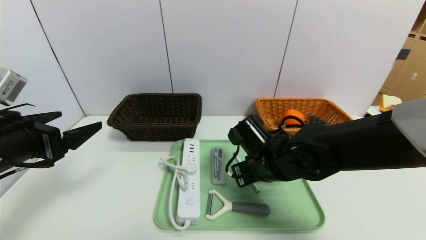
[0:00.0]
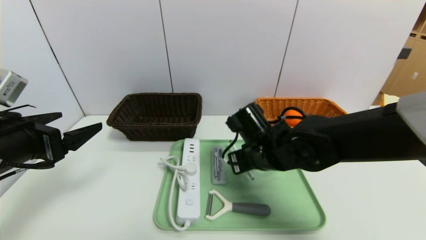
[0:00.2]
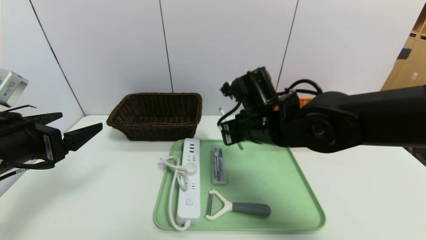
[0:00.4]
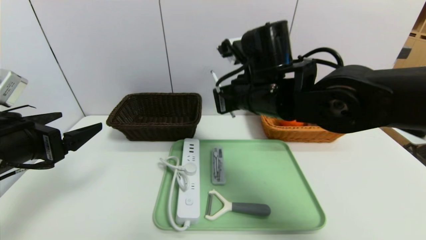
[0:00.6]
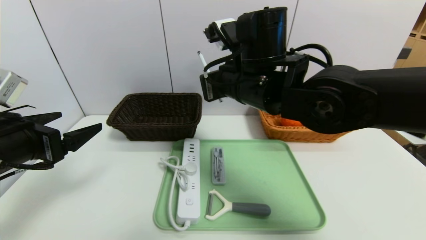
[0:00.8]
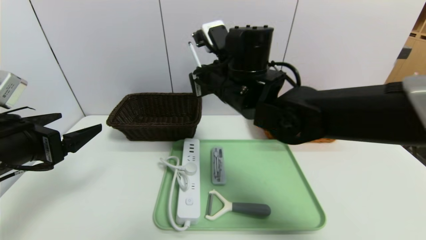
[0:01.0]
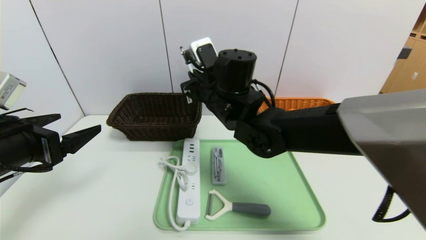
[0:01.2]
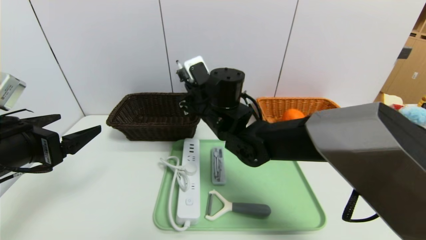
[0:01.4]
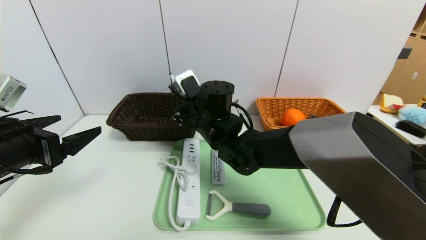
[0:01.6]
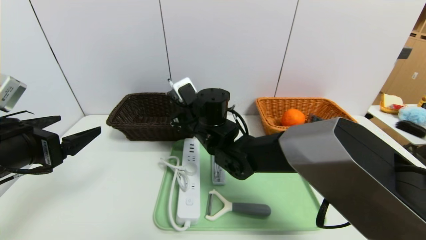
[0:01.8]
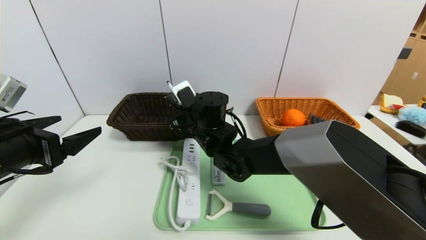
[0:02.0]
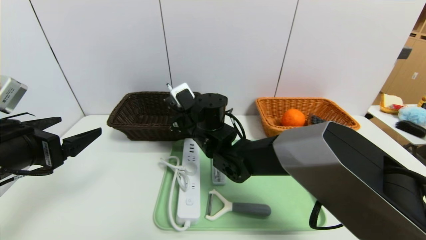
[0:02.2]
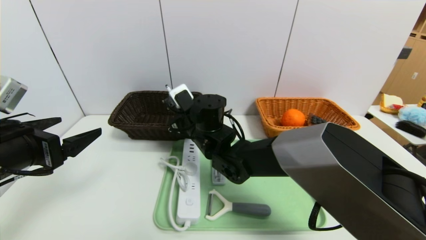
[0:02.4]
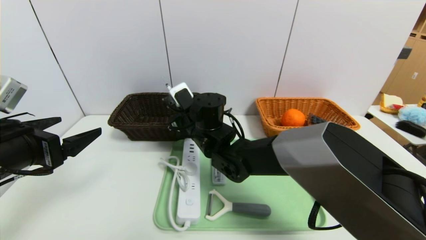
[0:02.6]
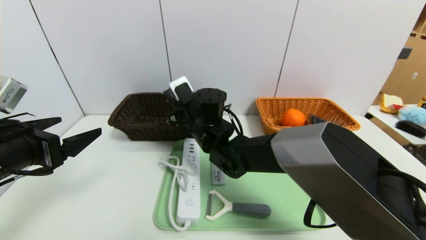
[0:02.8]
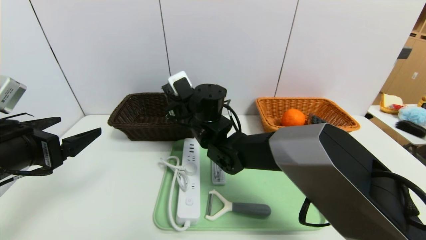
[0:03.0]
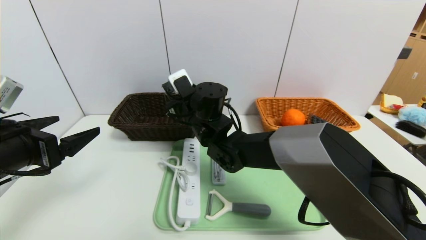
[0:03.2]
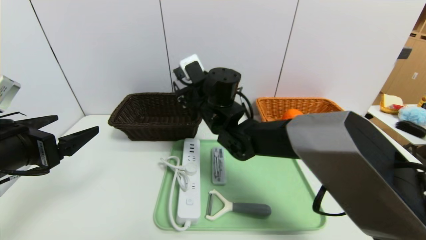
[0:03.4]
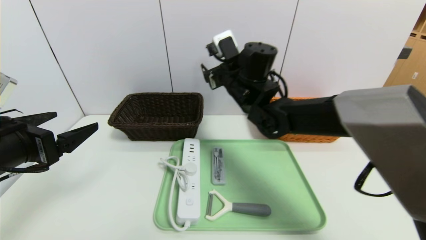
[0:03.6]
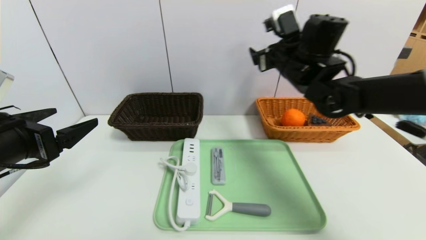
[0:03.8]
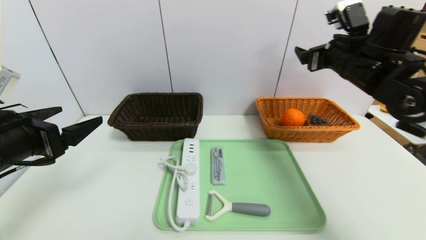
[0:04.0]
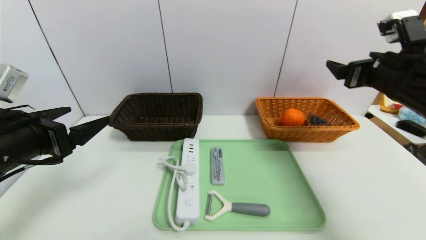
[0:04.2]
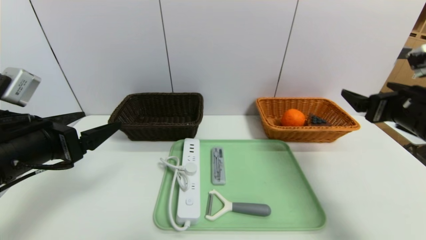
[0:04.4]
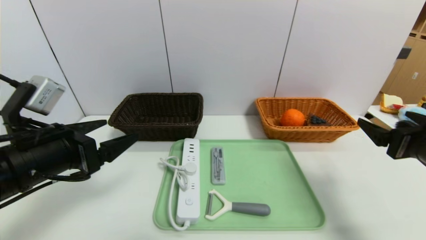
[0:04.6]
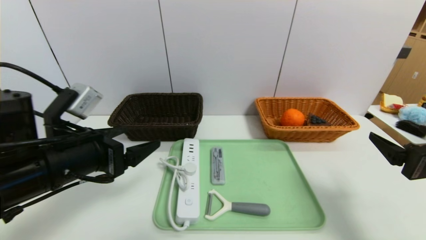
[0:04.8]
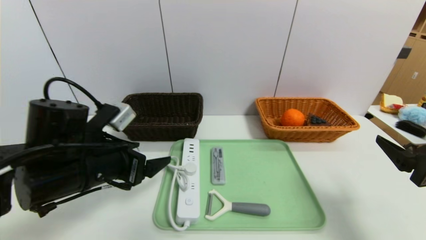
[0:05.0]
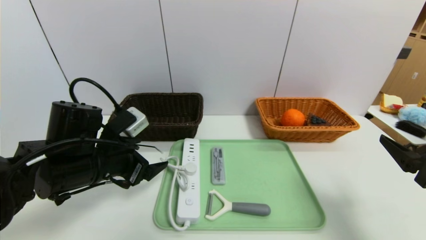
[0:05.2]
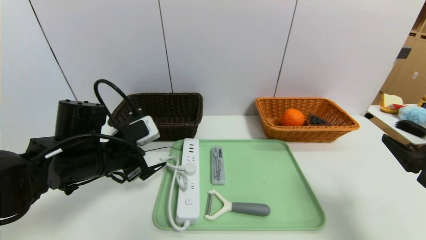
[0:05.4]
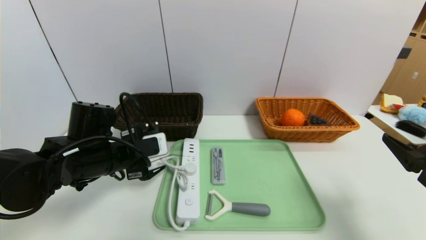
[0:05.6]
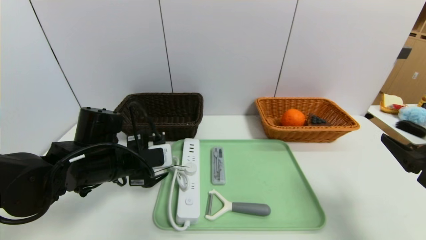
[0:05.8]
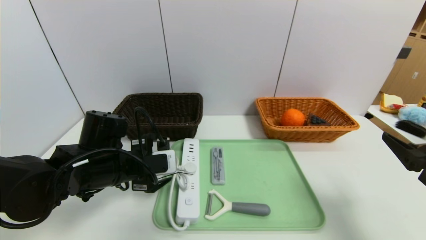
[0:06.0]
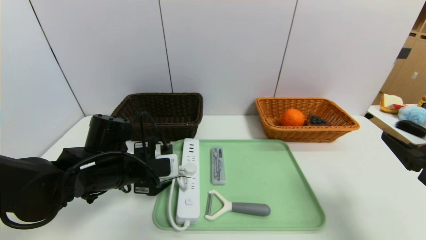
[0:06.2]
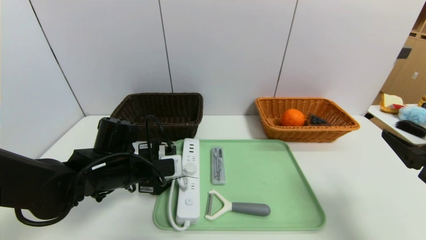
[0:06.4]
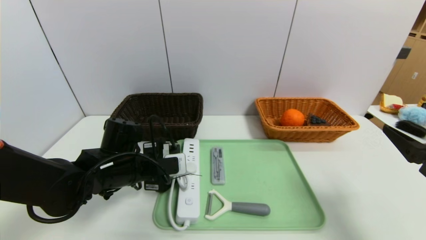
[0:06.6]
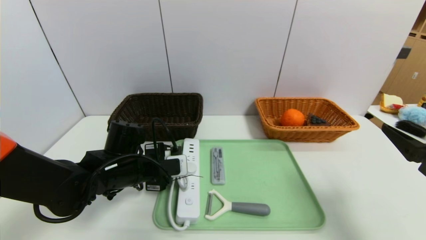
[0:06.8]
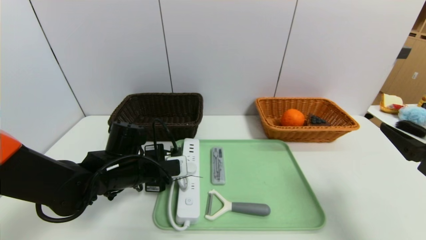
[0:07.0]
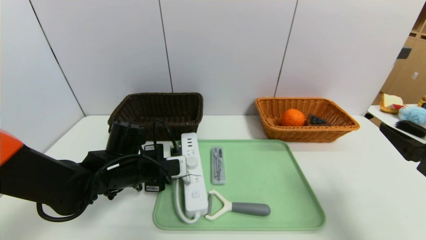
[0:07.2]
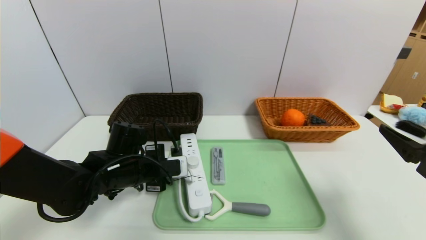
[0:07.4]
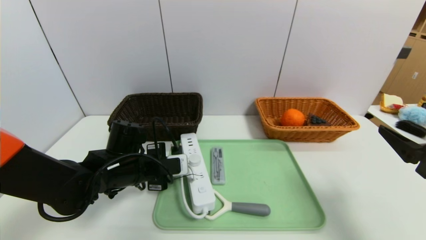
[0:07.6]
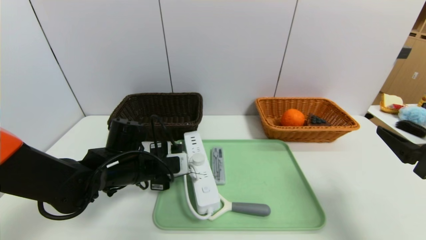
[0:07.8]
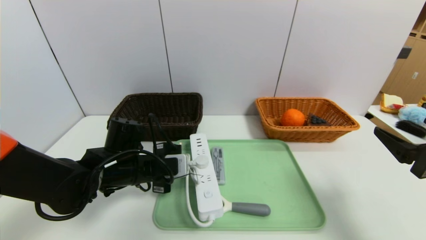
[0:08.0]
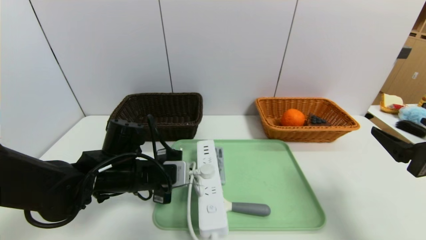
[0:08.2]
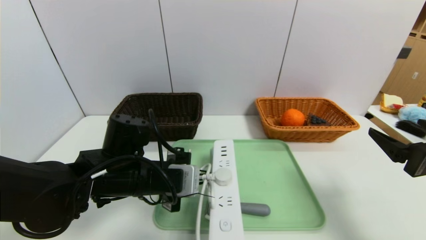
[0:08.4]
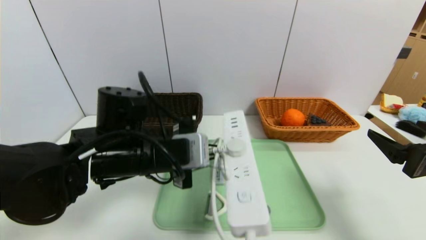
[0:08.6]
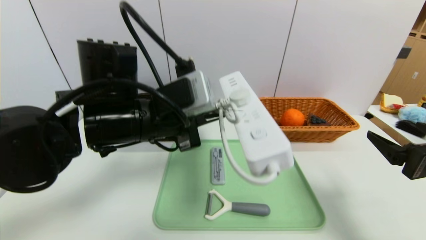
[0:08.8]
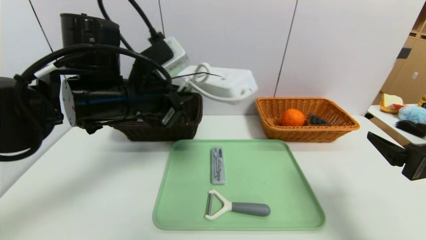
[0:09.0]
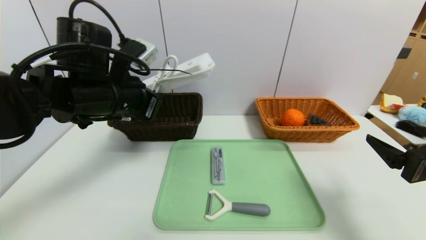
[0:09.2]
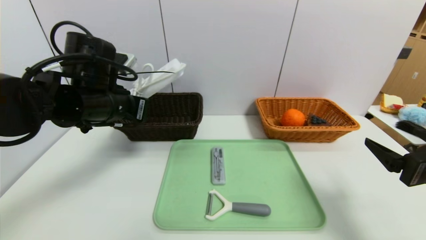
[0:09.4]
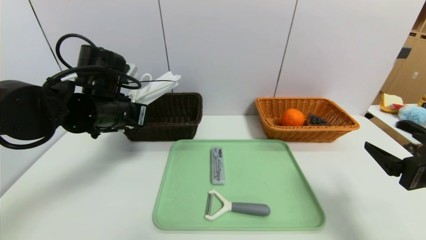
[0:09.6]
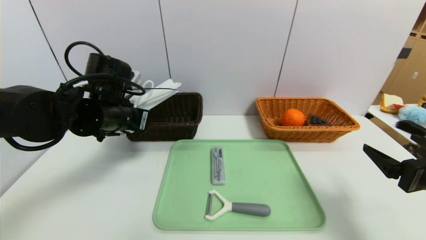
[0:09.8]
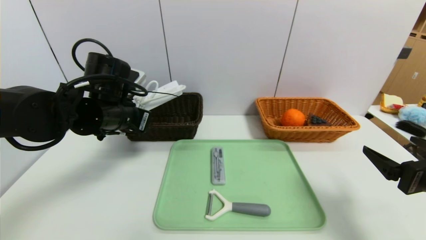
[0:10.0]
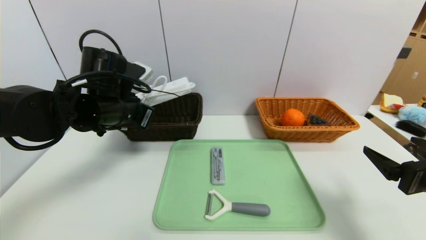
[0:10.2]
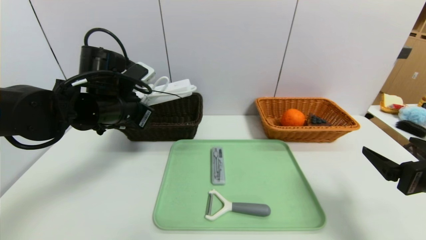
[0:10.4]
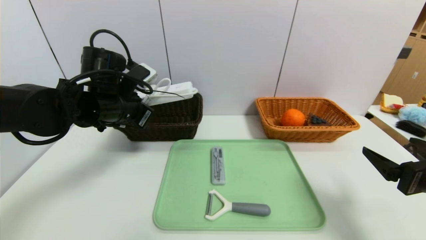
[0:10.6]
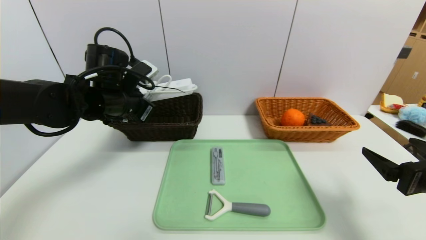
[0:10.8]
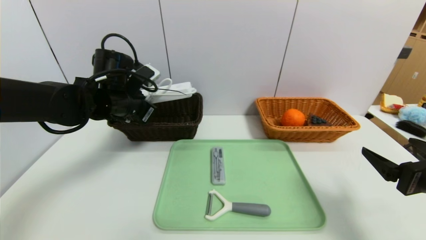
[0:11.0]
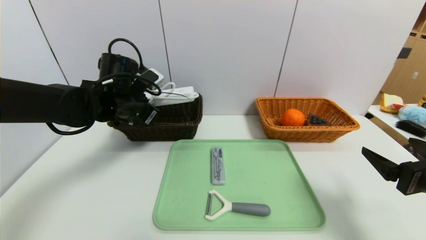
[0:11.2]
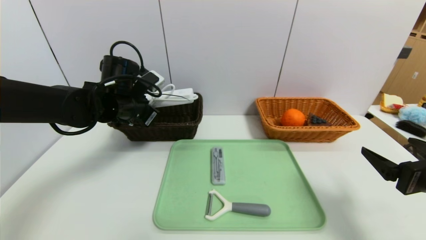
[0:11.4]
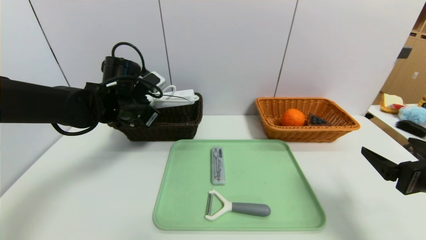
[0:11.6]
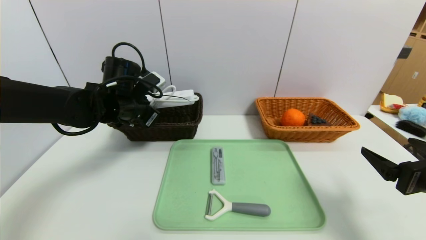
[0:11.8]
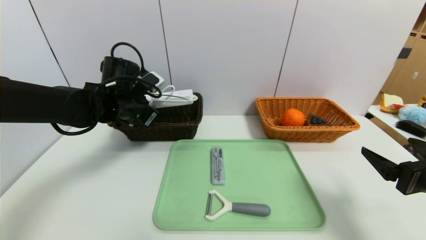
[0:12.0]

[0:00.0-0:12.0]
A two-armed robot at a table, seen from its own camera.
Task of the whole recording: place the food in the right basket with the right gripper, and place the non food items in the left basket with the left gripper.
0:00.0 to 0:01.6: The right gripper travels to the left, forward and upward by about 15 cm.
0:01.6 to 0:03.0: The right gripper opens its fingers.
0:03.0 to 0:04.4: The right gripper goes some 40 cm to the right and backward, and opens its fingers.
0:04.4 to 0:06.0: The right gripper goes about 10 cm backward. The left gripper moves downward, to the right and forward, roughly 15 cm.
0:06.0 to 0:07.6: The left gripper closes.
0:07.6 to 0:09.0: The left gripper travels upward by roughly 15 cm.
0:09.0 to 0:10.4: The left gripper ends up some 10 cm from where it was.
0:10.4 to 0:12.0: The left gripper is displaced forward by about 5 cm.

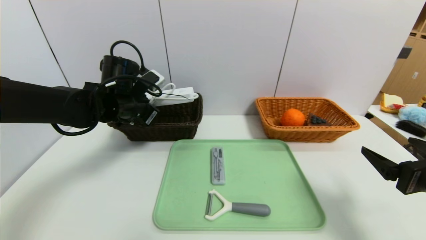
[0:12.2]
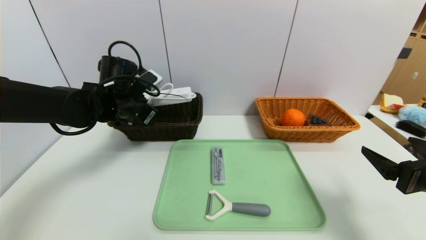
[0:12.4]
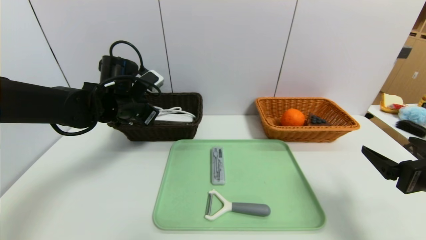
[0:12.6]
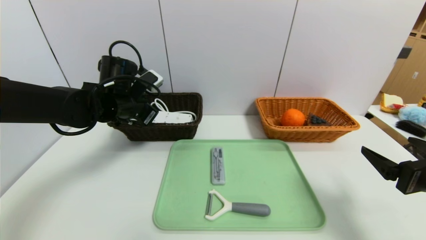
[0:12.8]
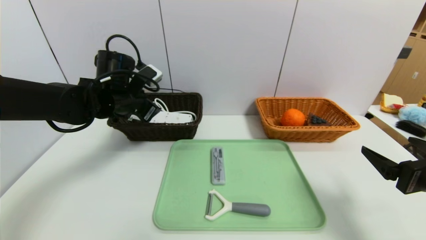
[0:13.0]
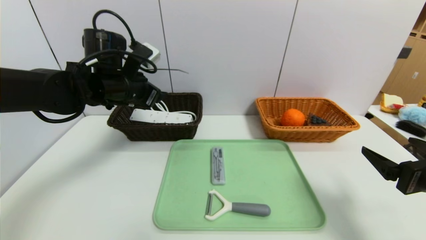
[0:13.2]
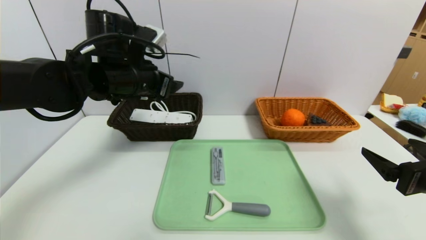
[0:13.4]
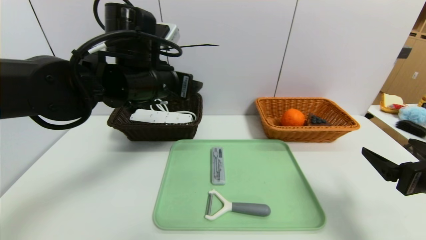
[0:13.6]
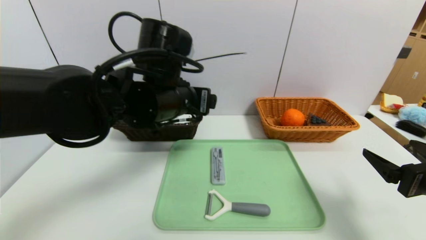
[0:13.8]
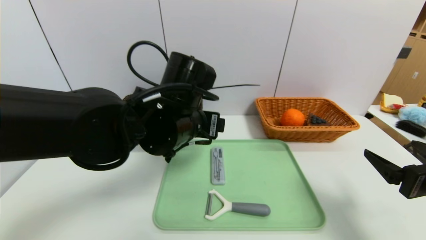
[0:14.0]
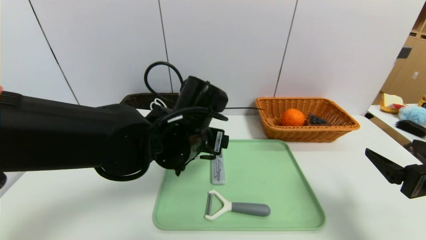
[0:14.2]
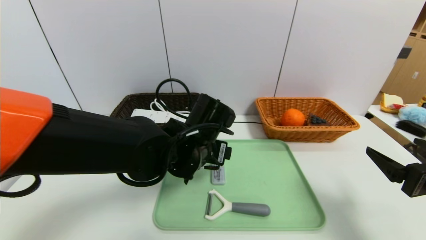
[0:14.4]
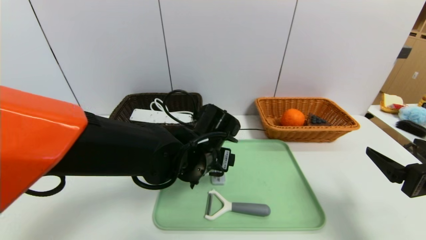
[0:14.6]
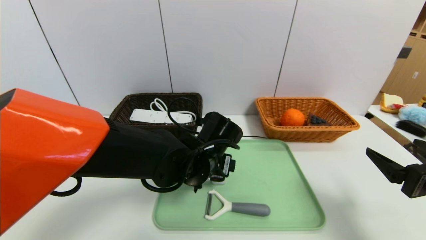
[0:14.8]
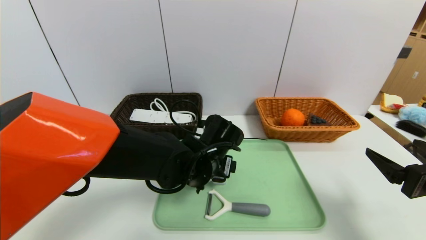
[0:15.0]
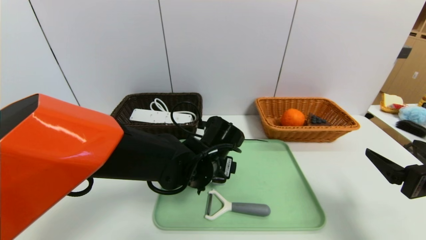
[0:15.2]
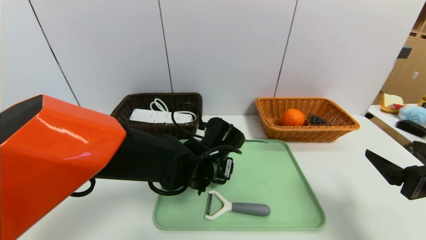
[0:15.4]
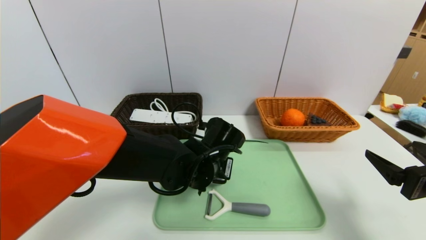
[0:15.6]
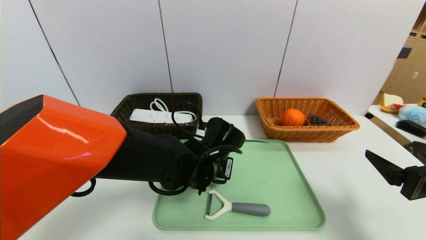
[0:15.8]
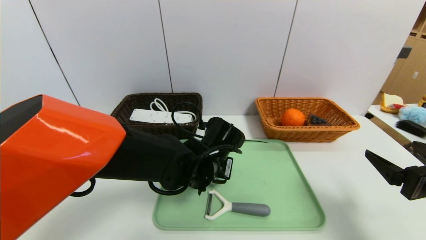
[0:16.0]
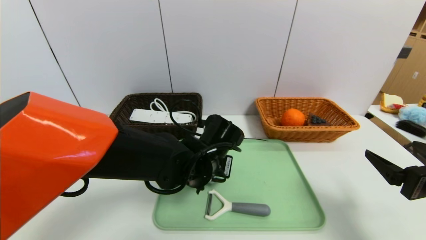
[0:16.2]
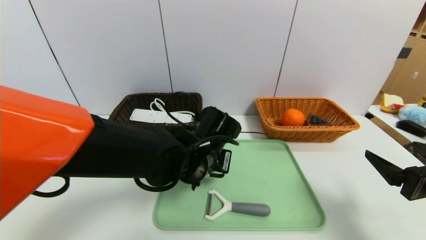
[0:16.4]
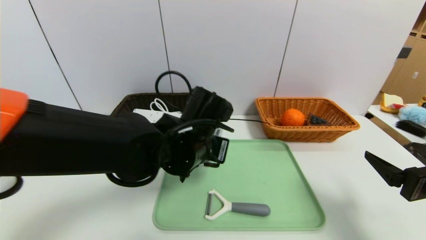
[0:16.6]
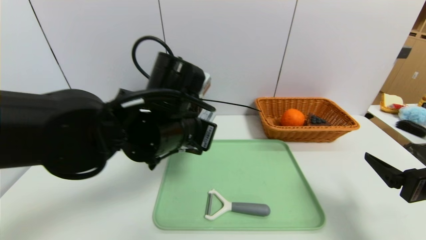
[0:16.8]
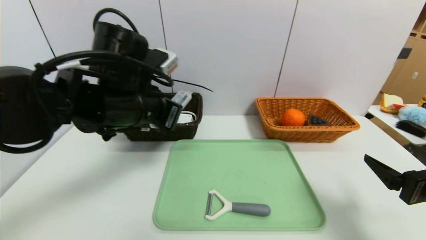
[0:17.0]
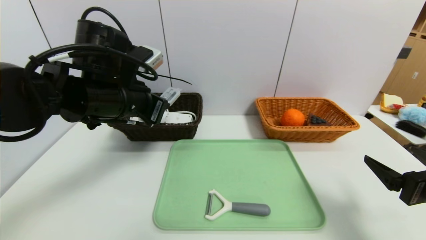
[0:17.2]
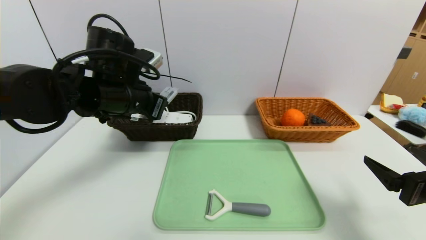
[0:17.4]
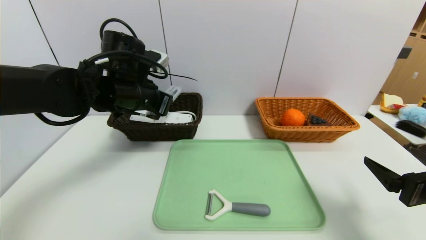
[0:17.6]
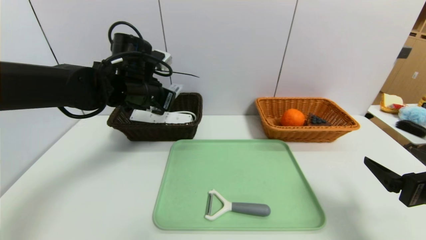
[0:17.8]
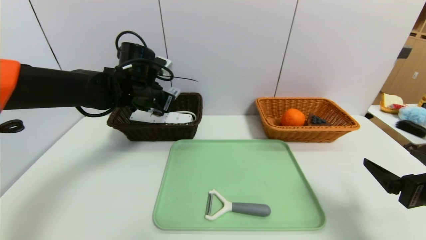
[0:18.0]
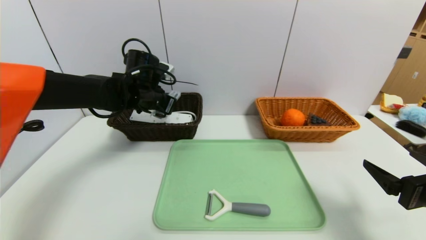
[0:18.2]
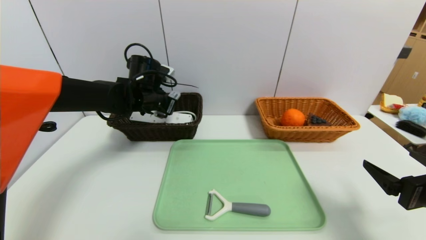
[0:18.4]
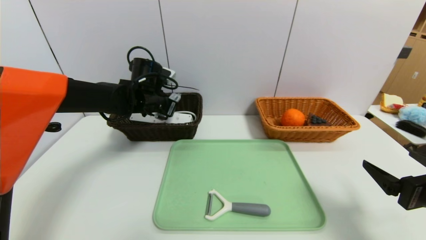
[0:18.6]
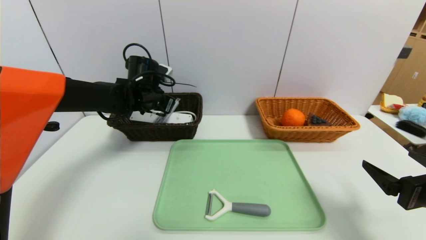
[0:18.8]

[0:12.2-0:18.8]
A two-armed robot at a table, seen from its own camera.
Task of the whole recording: place the food in the right basket with the right gripper, and place the non food items in the left basket with the left gripper.
0:12.2 to 0:13.8: The left gripper moves to the right, backward and upward, roughly 15 cm, and opens.
0:13.8 to 0:15.4: The left gripper shifts roughly 15 cm downward and to the right.
0:15.4 to 0:17.2: The left gripper is displaced to the left and upward by approximately 20 cm, and closes up.
0:17.2 to 0:18.8: The left gripper shifts approximately 15 cm forward and downward.
